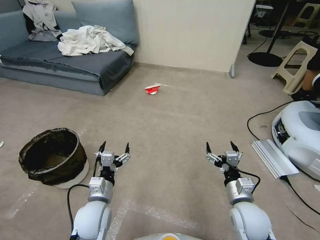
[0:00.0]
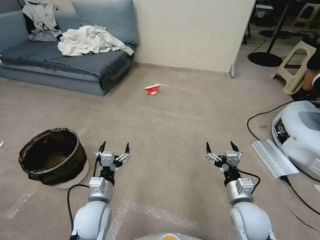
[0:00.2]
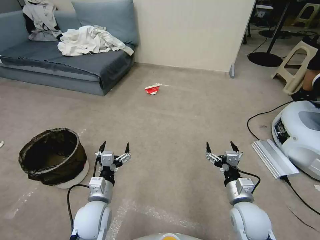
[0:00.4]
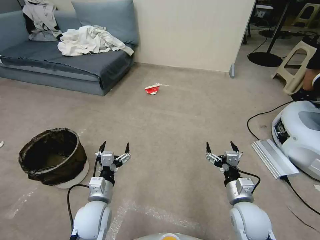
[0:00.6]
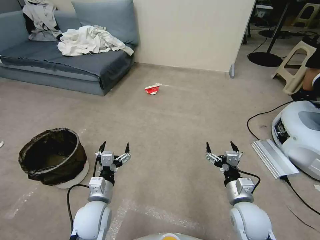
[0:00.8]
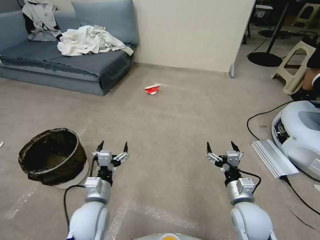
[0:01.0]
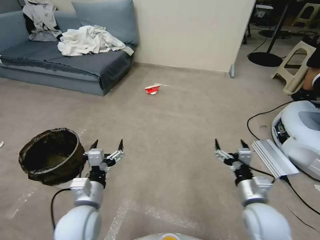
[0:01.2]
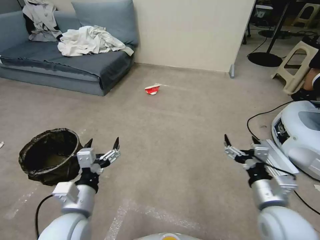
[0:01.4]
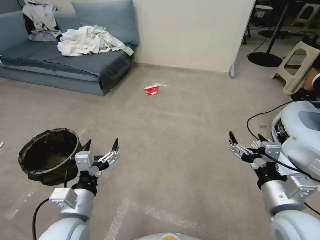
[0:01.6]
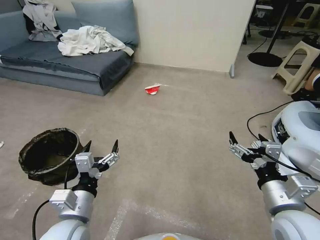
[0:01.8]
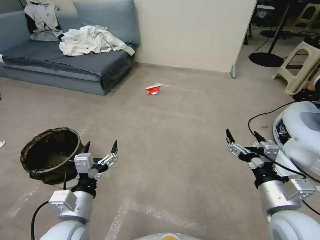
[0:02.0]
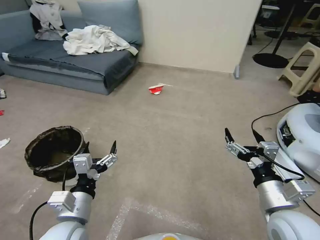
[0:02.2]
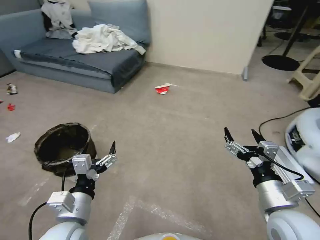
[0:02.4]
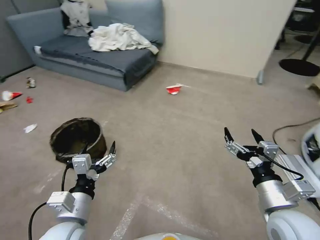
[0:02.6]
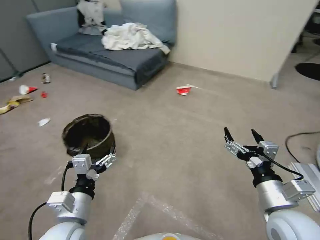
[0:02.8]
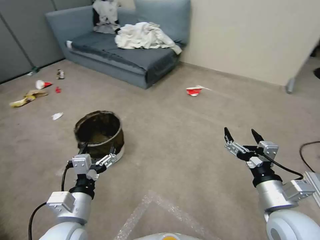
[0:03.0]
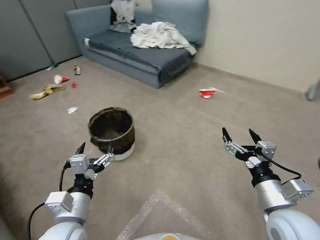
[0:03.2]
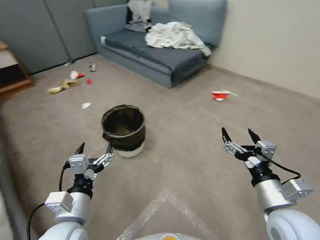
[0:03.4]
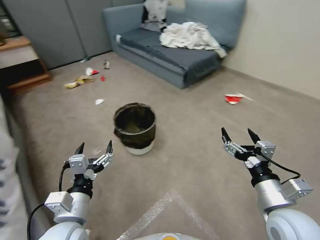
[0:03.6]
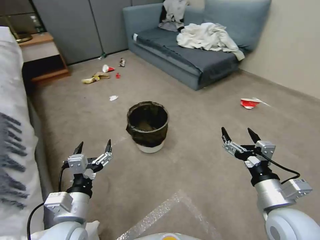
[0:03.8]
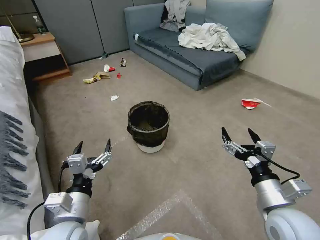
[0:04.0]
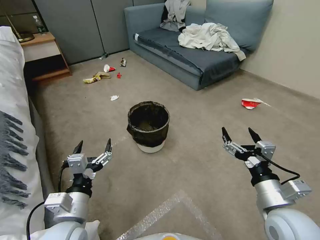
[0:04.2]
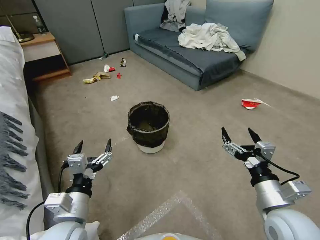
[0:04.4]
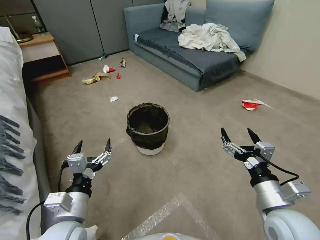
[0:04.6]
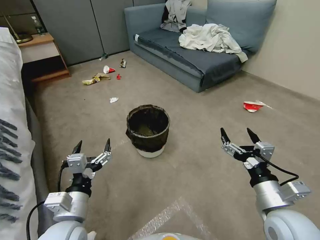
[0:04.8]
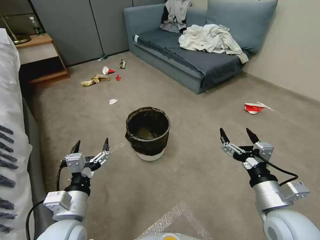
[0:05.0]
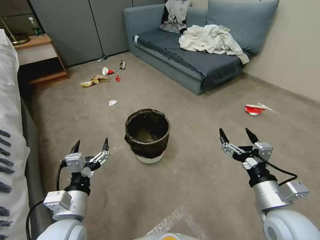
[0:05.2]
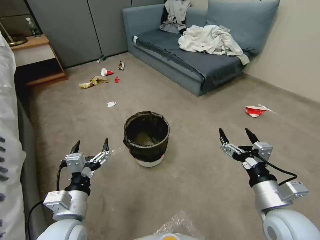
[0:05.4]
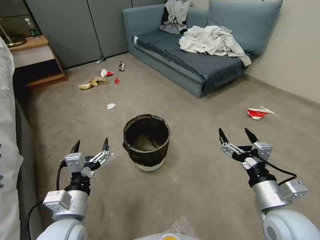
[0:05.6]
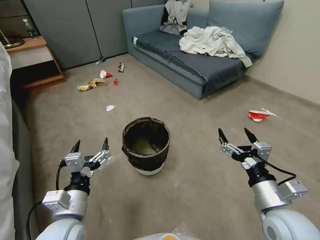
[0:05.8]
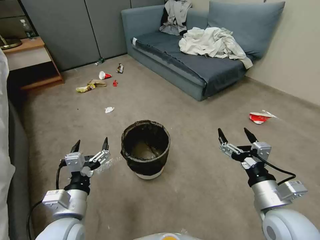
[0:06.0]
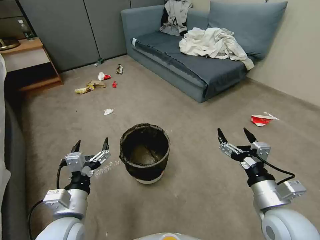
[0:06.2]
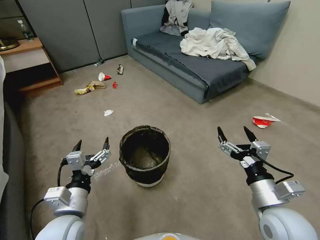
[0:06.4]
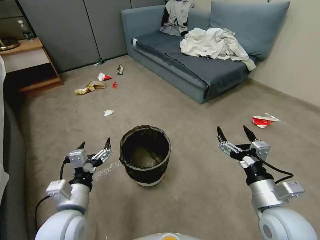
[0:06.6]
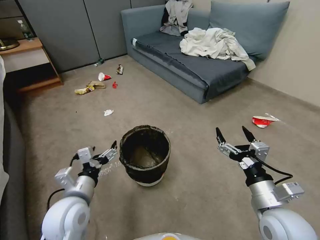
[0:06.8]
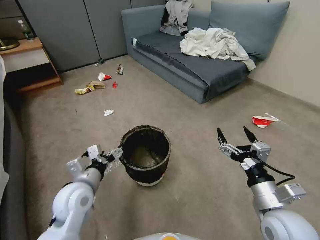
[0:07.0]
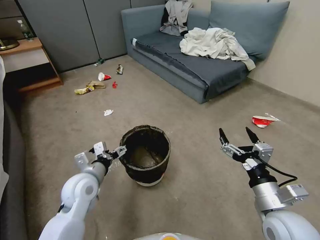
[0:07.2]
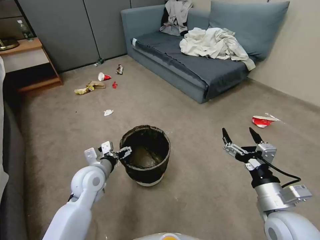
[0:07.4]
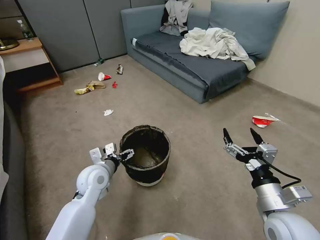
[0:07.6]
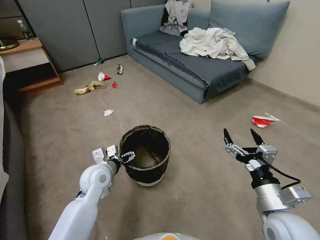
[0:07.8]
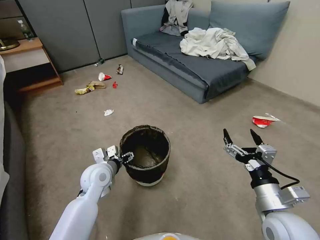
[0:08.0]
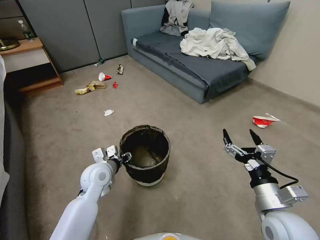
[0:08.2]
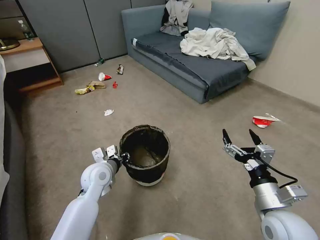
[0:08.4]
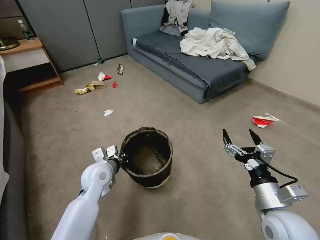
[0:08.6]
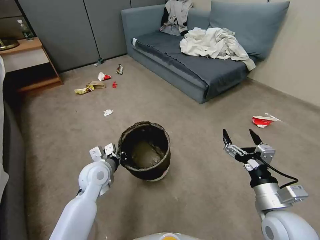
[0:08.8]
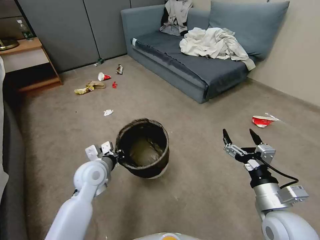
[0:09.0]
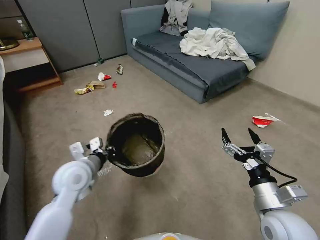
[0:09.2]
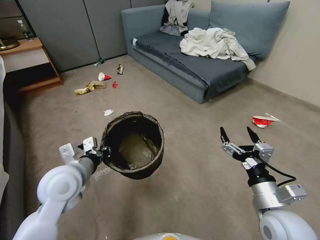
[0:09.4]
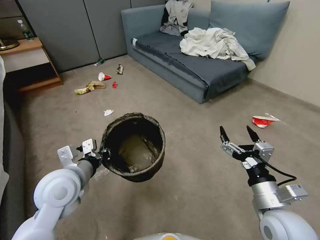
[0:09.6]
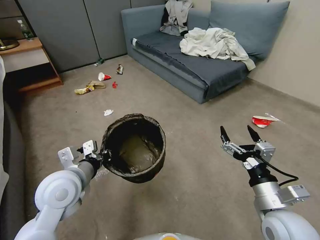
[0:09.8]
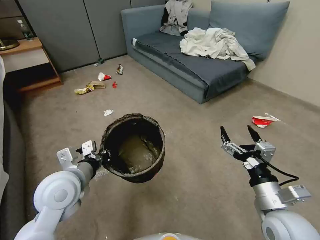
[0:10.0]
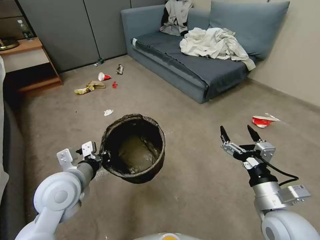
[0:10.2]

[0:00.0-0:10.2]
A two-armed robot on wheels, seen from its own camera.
Task of the whole recording: Pick up the trash can from the floor.
0:05.8 to 0:07.2: The left gripper travels forward by about 10 cm.
0:07.2 to 0:08.8: The left gripper travels forward by some 5 cm, and closes its fingers.
0:08.8 to 0:10.2: The left gripper heads upward and backward, covering roughly 15 cm.
